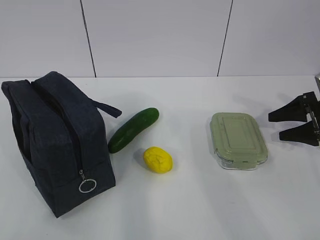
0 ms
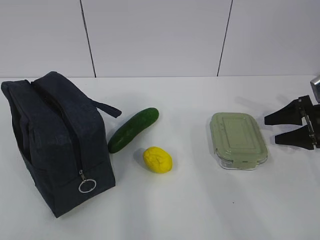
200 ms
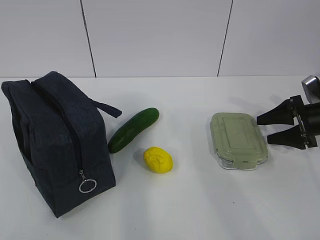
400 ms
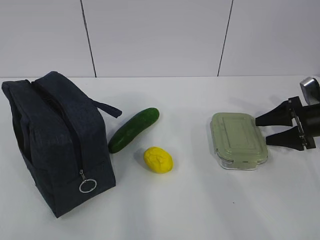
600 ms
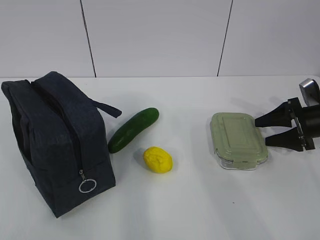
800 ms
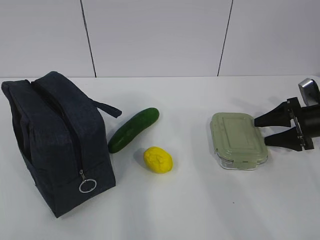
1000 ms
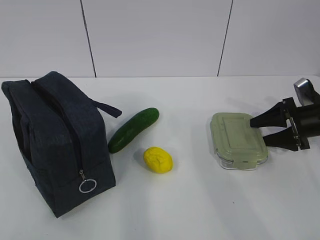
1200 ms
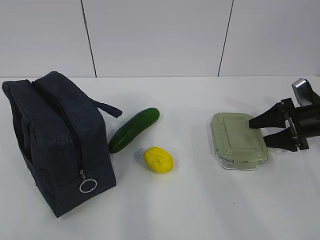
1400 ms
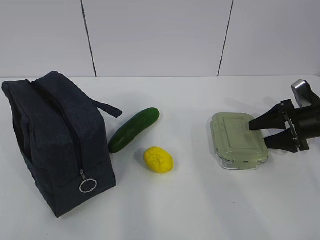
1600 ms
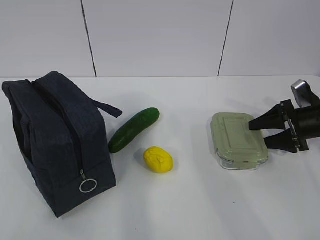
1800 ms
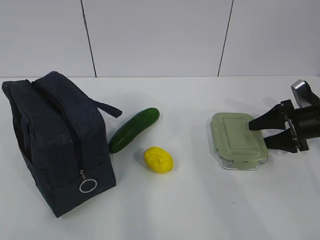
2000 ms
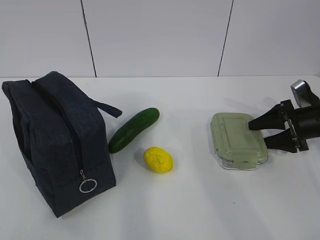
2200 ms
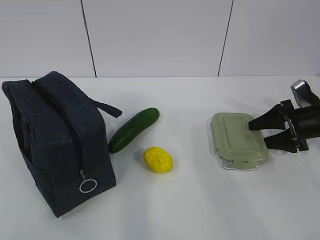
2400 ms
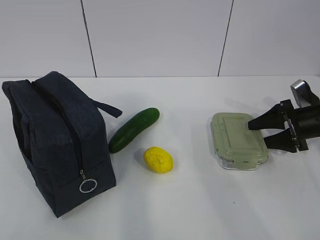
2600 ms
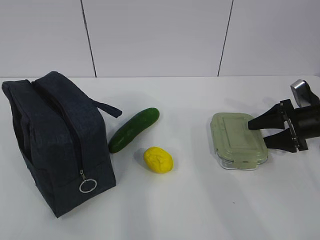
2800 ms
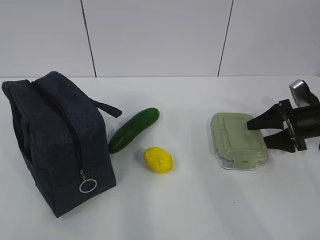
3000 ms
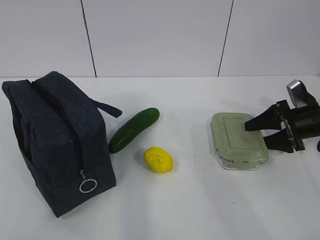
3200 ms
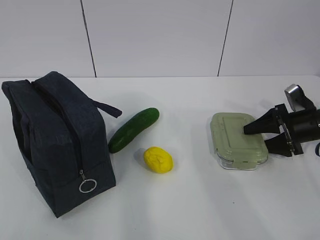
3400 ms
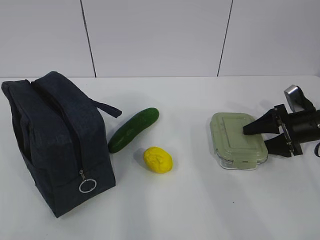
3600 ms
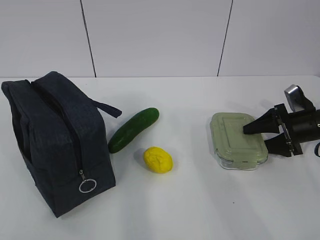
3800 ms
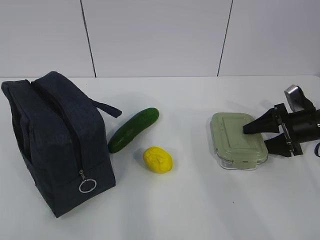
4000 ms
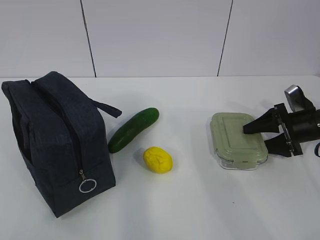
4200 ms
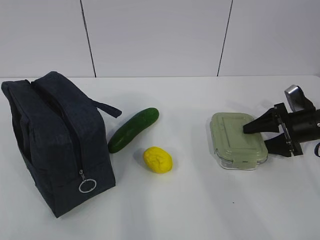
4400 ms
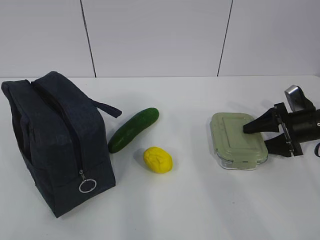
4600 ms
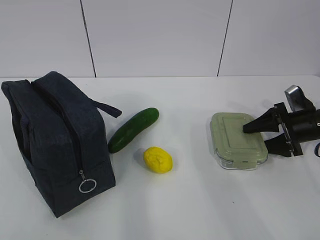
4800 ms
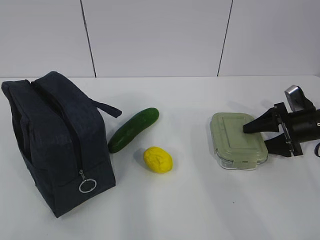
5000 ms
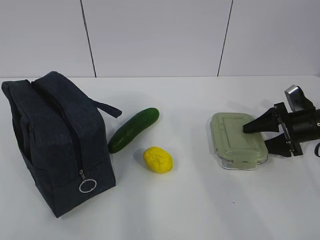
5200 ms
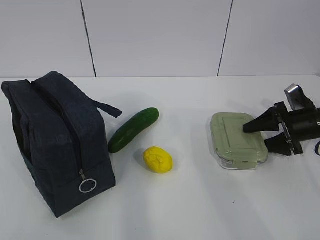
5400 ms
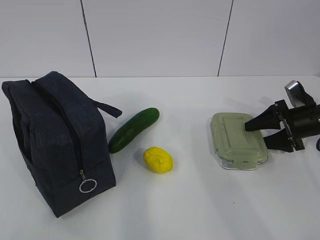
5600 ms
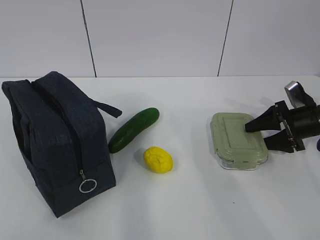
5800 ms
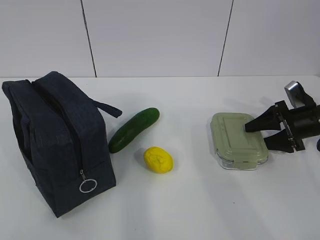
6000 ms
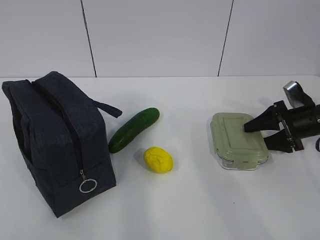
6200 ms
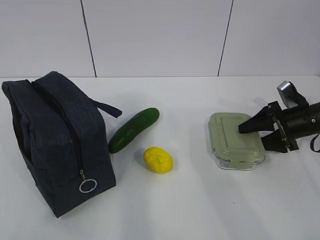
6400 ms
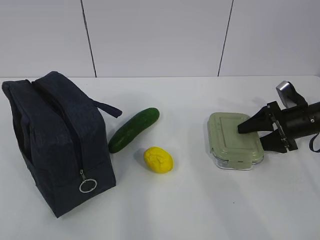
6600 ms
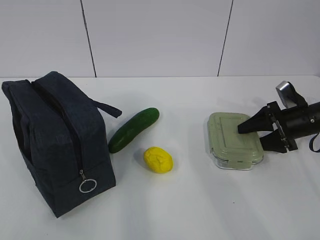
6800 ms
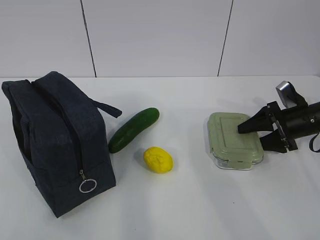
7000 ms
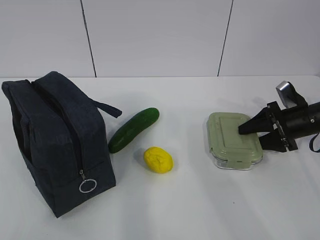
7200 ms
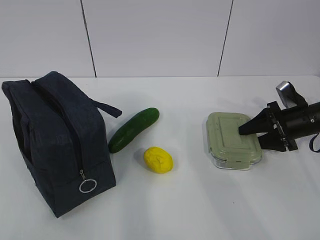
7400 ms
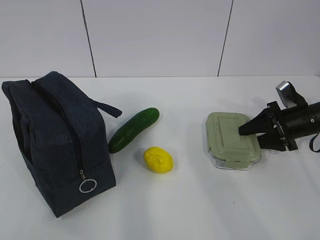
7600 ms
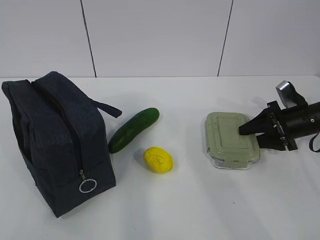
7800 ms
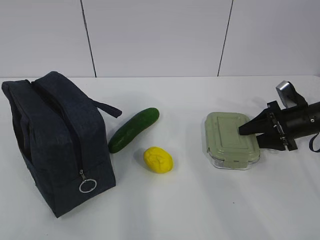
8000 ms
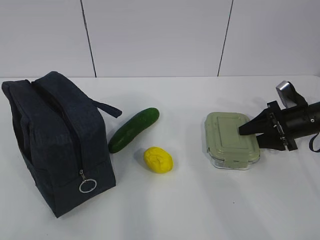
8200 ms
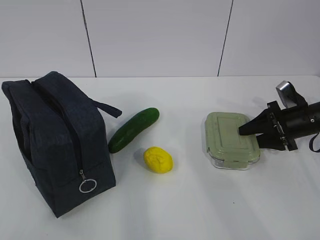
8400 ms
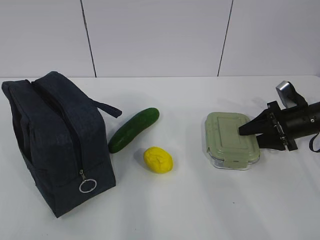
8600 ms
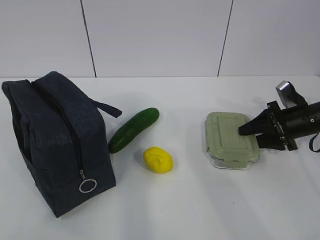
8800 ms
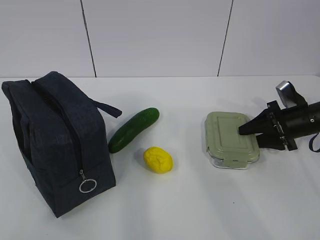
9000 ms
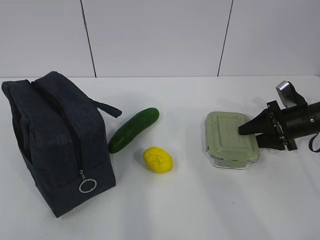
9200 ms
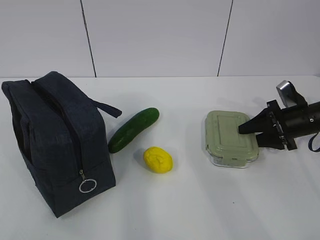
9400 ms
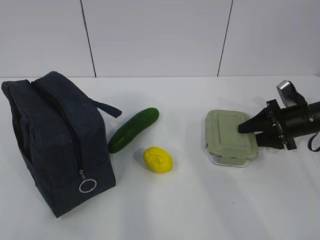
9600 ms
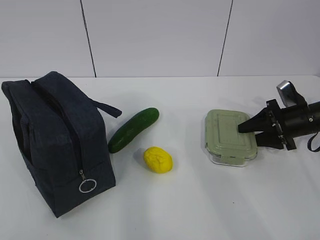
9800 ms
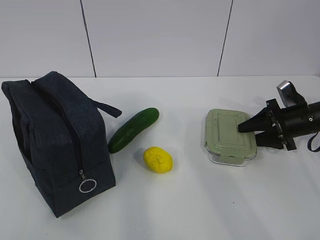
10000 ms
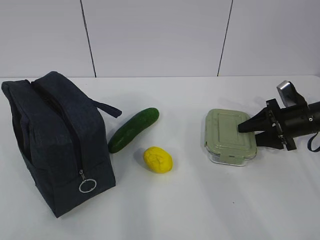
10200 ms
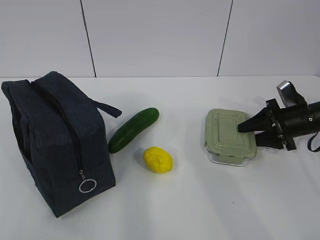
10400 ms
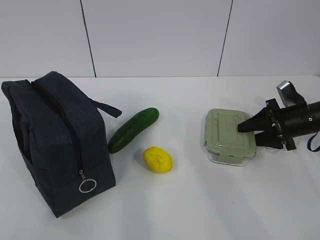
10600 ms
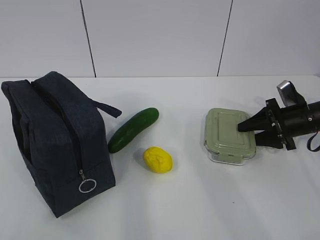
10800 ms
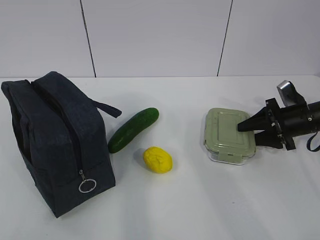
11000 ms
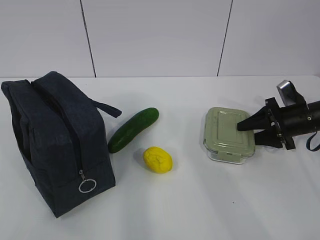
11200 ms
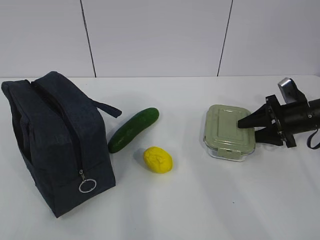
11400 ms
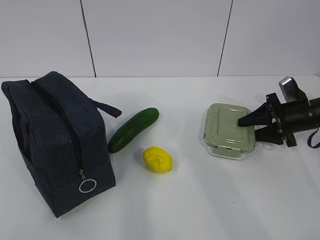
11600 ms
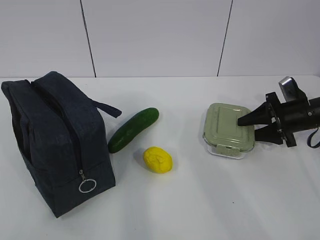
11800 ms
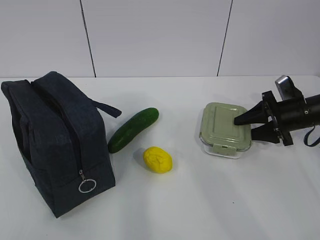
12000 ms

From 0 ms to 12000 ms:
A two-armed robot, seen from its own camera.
Step, from 0 ms to 7800 ms: Grab the lunch box with your right hand.
From 0 ms to 1600 ms: The grippers make only small movements.
From 1600 ms to 3000 ms: The two grippers keep their place.
From 3000 ms to 6000 ms: Both grippers stay about where they are.
From 6000 ms to 7600 ms: The grippers stay close to where they were, moving slightly.
From 7600 ms to 10400 ms: Both grippers stay put.
From 10400 ms to 12000 ms: There are only small adjustments of the grippers.

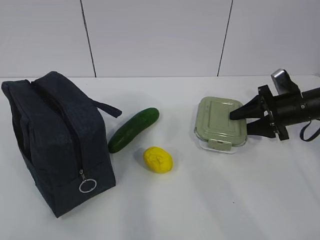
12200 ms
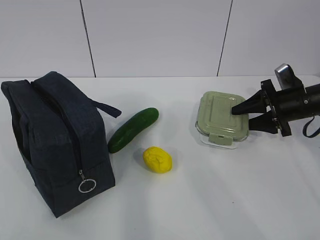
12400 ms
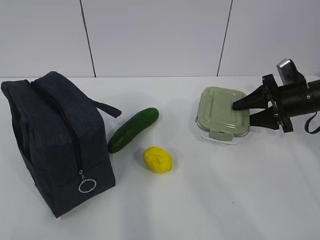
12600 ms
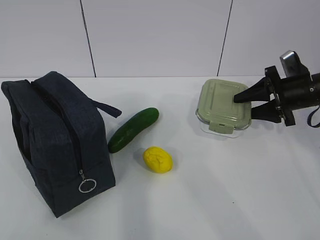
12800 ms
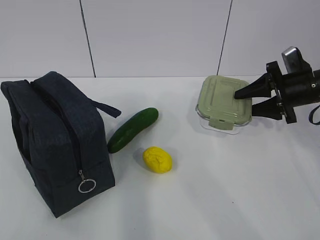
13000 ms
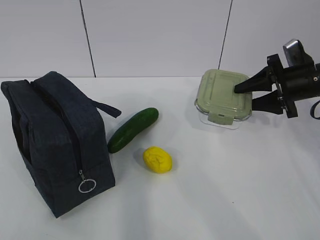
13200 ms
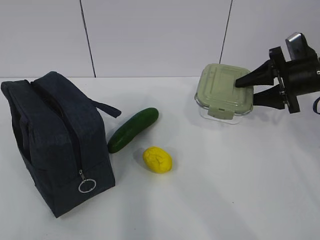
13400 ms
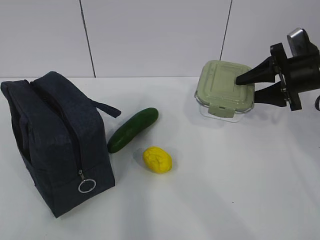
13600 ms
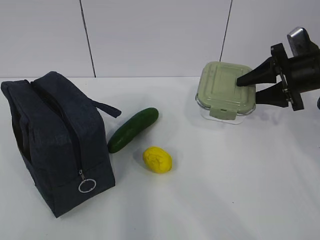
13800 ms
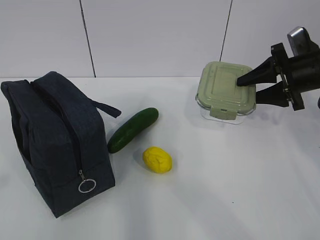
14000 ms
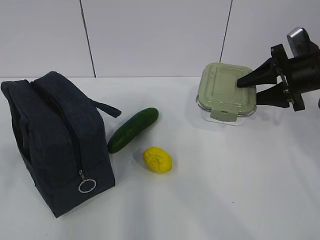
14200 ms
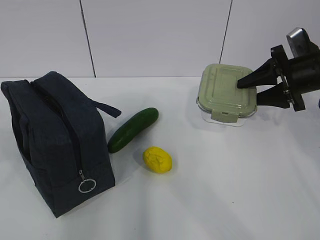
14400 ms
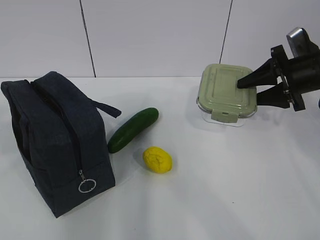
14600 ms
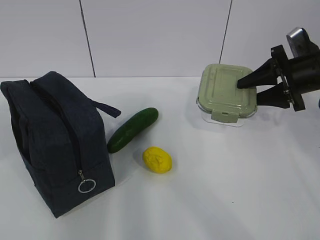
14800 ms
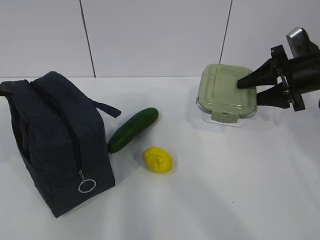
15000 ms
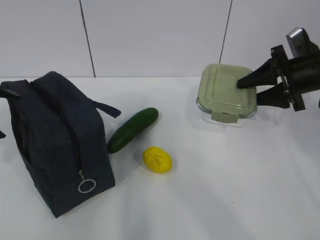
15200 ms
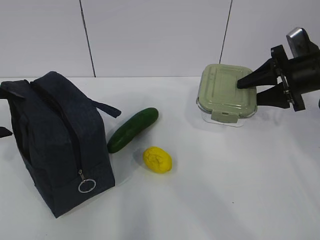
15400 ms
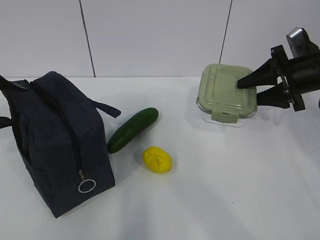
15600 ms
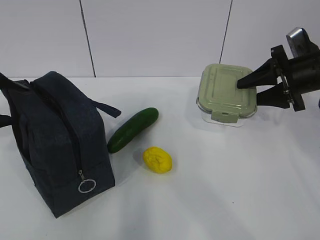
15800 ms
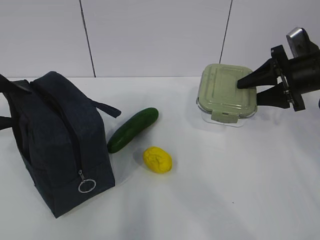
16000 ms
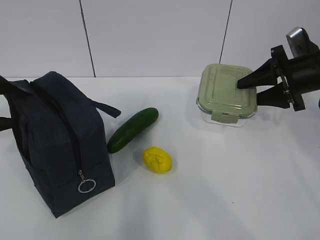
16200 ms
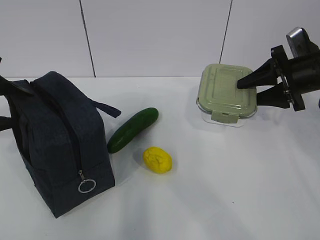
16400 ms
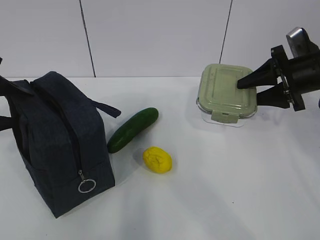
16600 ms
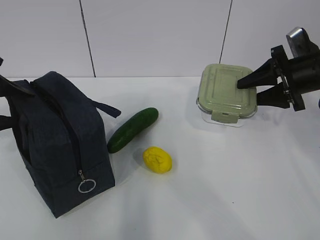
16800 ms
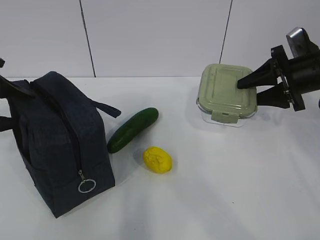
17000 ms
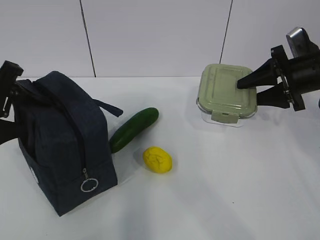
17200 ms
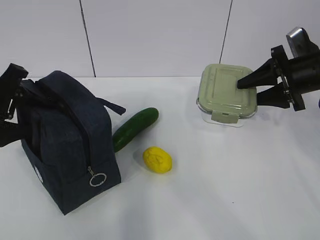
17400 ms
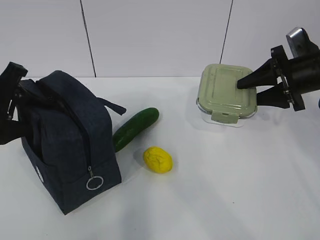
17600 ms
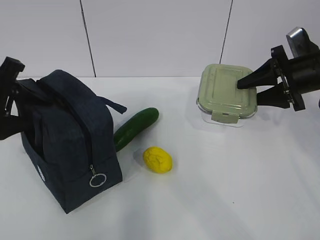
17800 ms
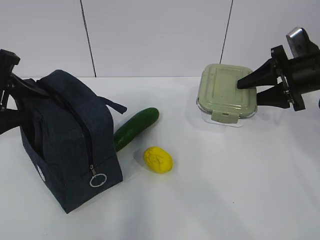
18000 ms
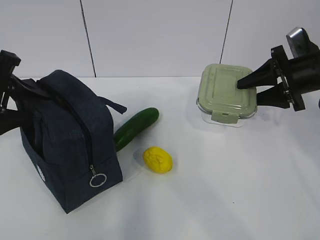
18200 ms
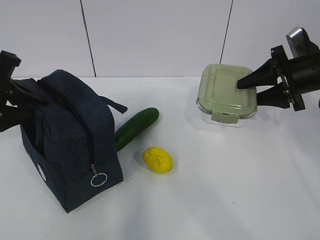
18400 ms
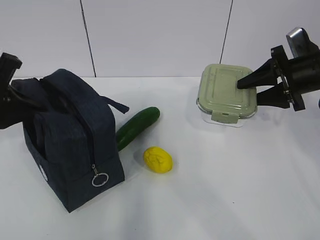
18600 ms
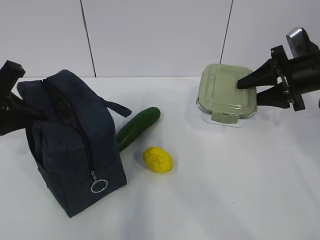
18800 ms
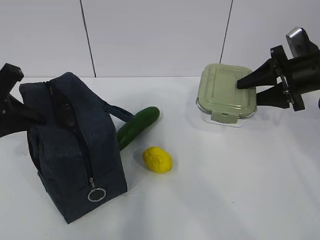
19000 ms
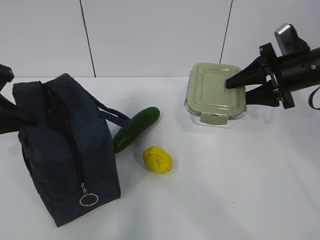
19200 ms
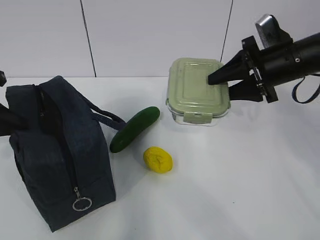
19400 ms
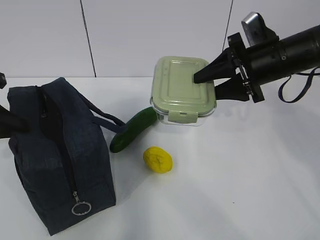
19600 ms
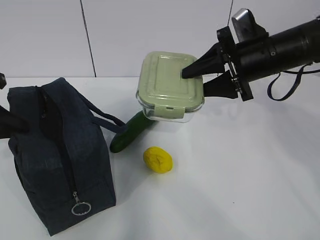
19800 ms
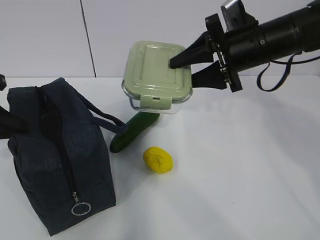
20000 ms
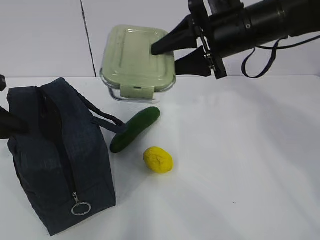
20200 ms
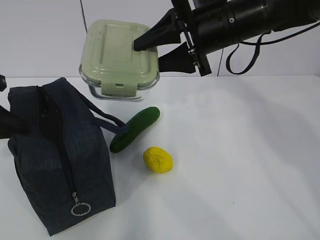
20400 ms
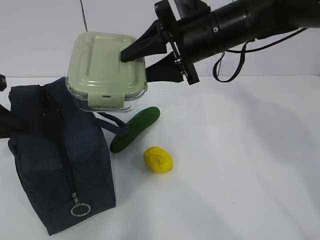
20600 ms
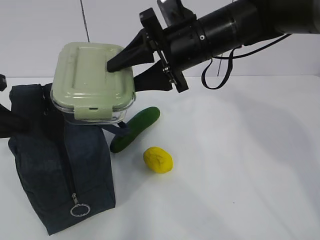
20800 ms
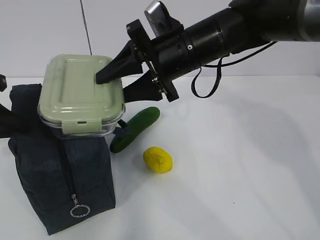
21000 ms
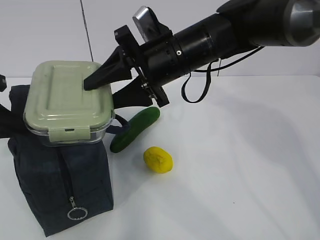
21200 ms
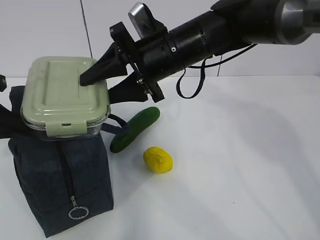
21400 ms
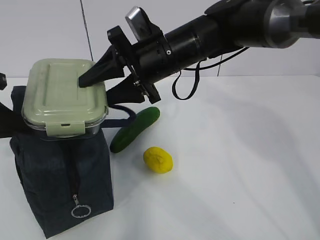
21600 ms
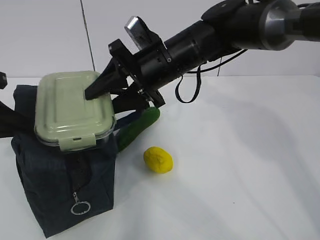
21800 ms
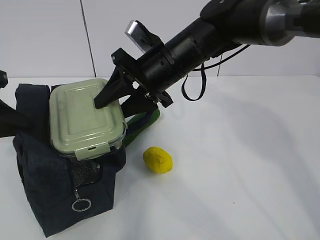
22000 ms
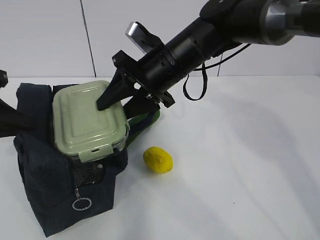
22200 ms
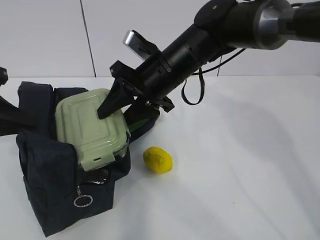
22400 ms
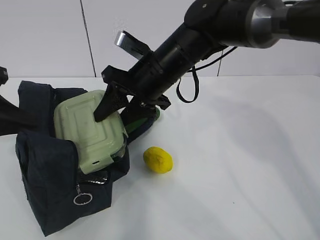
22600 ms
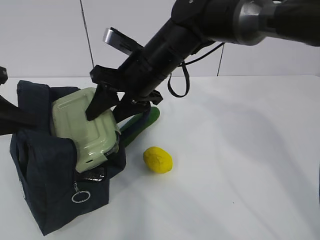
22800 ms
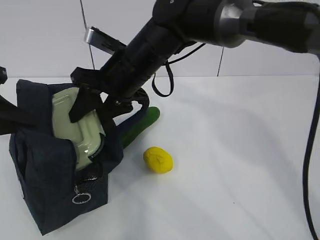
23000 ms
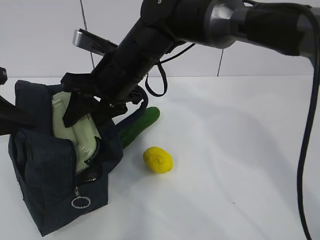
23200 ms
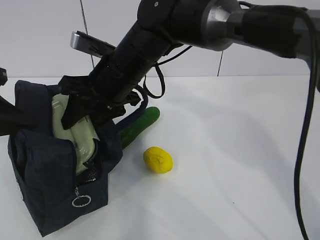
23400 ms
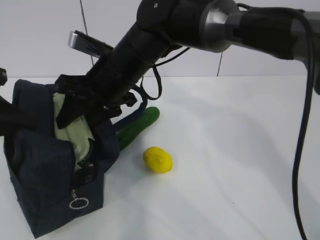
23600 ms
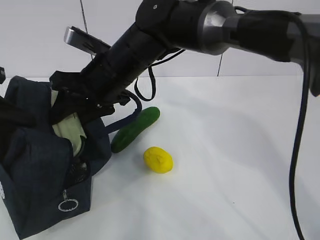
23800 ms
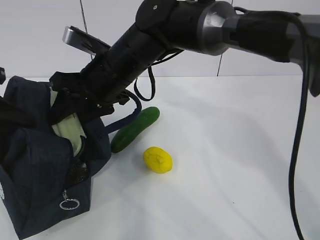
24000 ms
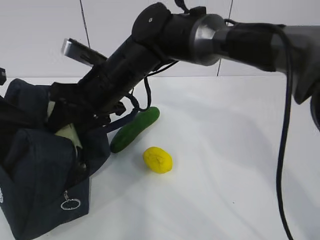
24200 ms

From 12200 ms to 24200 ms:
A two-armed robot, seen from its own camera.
Step, from 12200 ms to 16000 ms: Grab the lunch bag with your left hand.
Step, from 16200 ms to 19600 ms: Place it into the bag with your right hand.
From 12200 ms to 13800 ms: The right gripper goes some 10 cm upward.
From 13800 ms to 15200 ms: The left gripper travels forward by some 25 cm, and opens.
From 16600 ms to 18200 ms: The grippers make only small movements.
From 18200 ms to 19800 ms: The right gripper moves to the left, approximately 10 cm. Meanwhile the left gripper closes up.
From 19800 ms to 21200 ms: The right gripper heads to the left, covering roughly 15 cm.
From 22600 ms to 24200 ms: The right gripper heads to the left, covering about 10 cm.
